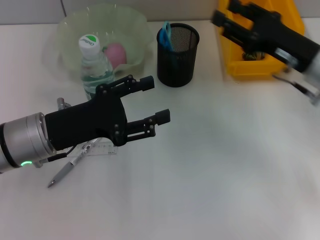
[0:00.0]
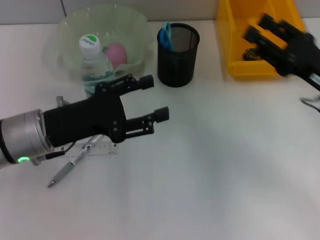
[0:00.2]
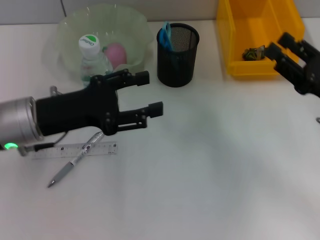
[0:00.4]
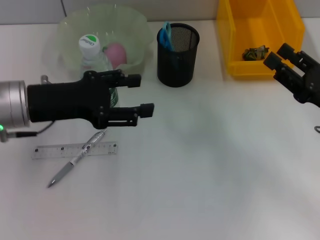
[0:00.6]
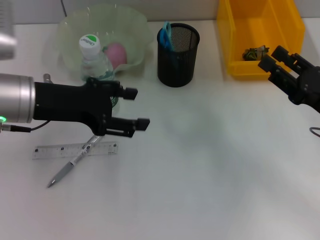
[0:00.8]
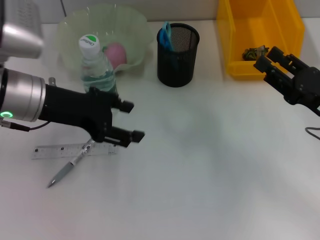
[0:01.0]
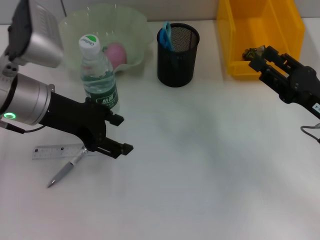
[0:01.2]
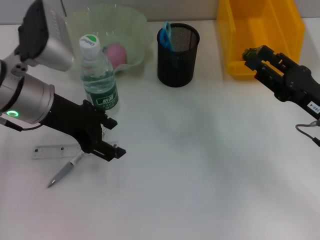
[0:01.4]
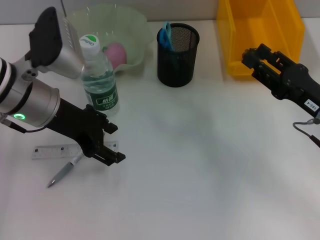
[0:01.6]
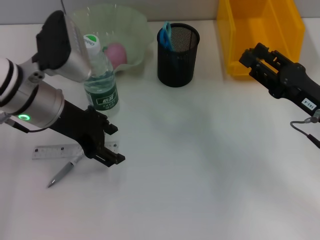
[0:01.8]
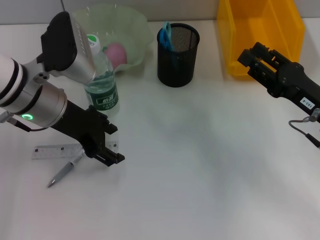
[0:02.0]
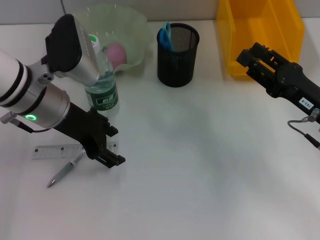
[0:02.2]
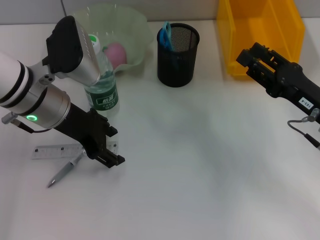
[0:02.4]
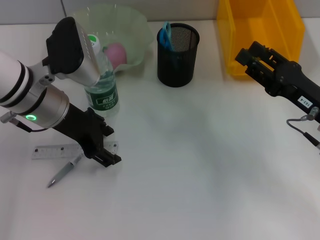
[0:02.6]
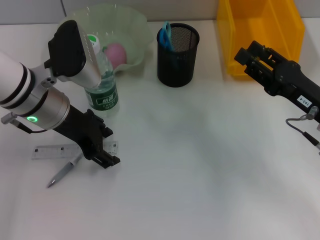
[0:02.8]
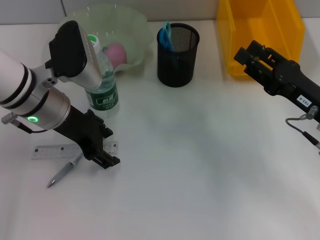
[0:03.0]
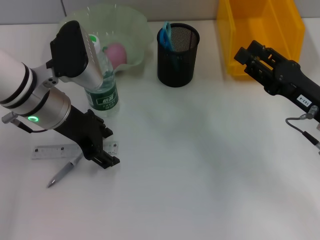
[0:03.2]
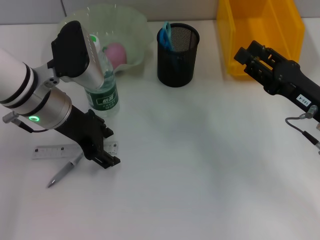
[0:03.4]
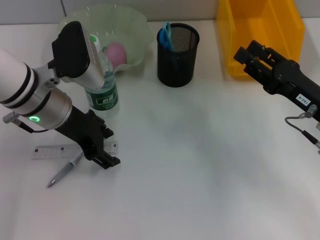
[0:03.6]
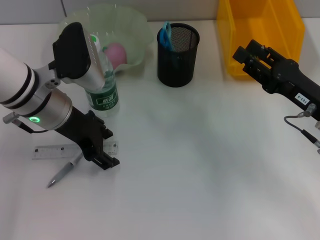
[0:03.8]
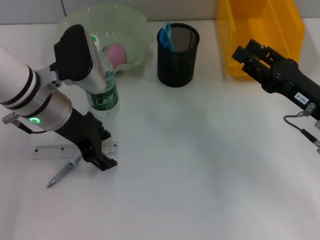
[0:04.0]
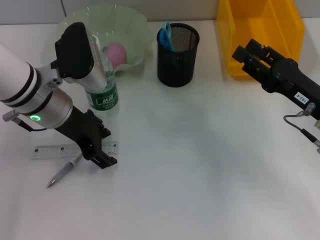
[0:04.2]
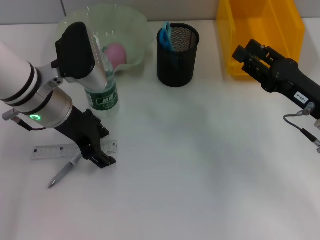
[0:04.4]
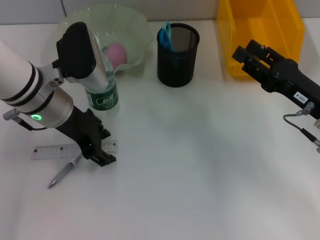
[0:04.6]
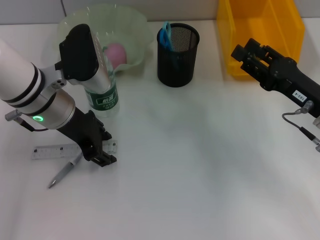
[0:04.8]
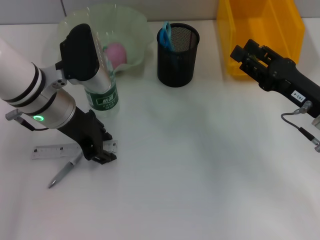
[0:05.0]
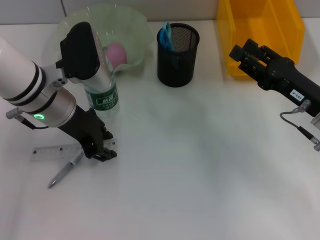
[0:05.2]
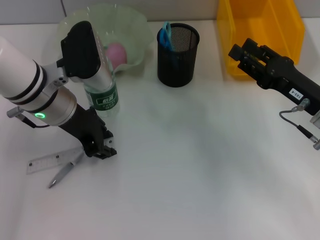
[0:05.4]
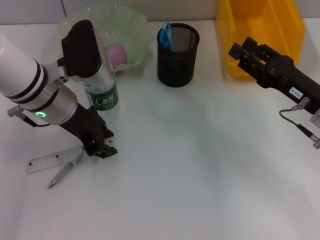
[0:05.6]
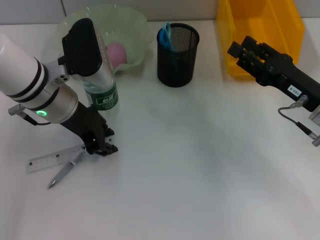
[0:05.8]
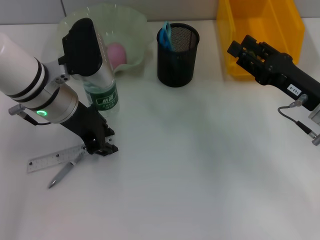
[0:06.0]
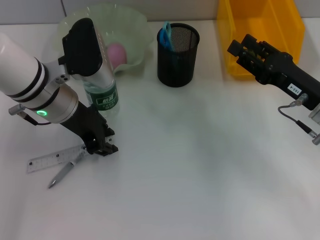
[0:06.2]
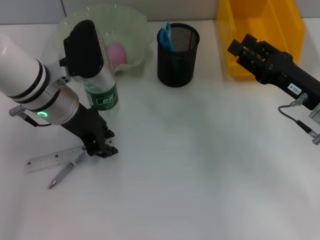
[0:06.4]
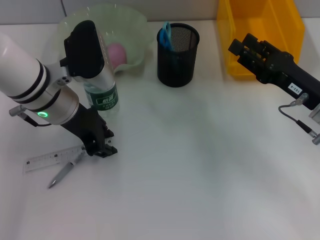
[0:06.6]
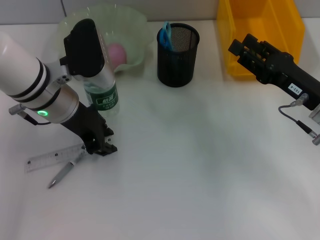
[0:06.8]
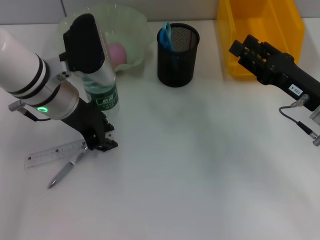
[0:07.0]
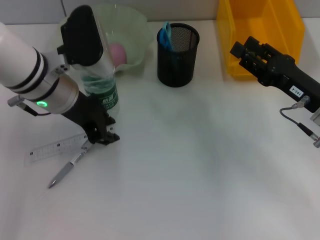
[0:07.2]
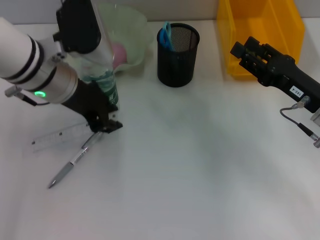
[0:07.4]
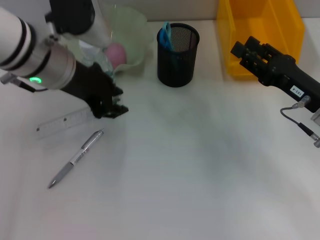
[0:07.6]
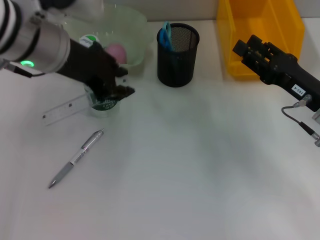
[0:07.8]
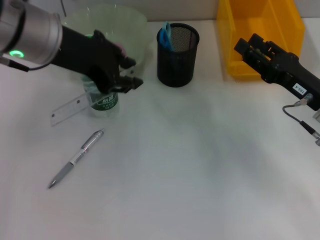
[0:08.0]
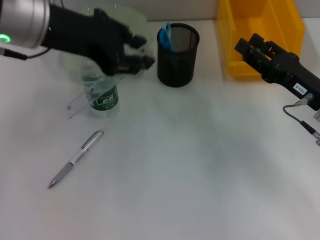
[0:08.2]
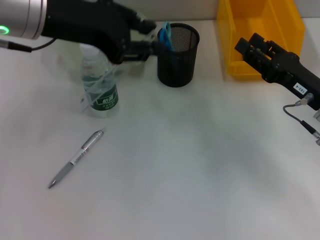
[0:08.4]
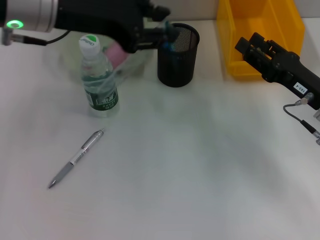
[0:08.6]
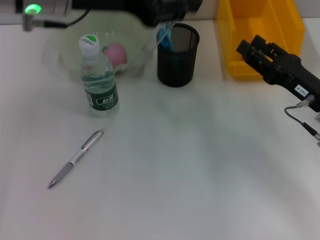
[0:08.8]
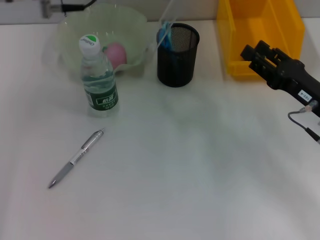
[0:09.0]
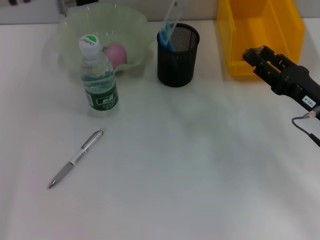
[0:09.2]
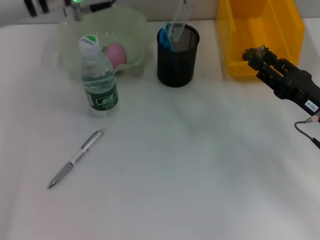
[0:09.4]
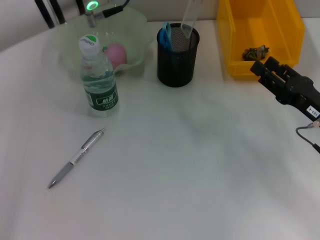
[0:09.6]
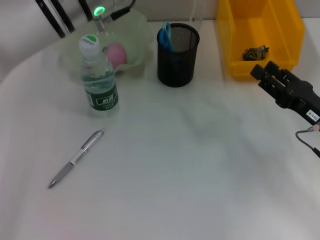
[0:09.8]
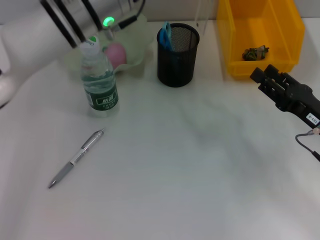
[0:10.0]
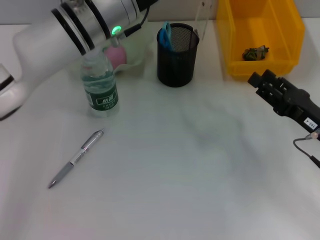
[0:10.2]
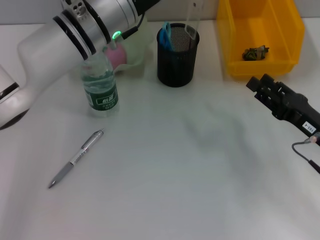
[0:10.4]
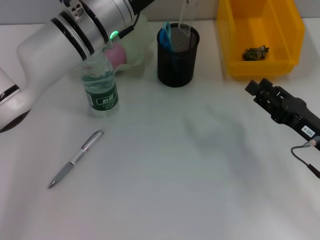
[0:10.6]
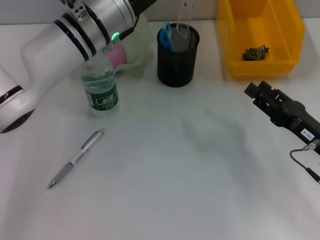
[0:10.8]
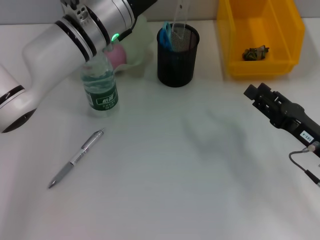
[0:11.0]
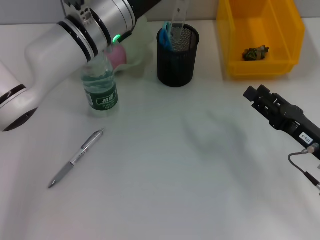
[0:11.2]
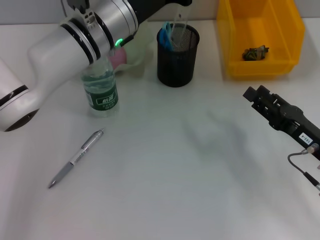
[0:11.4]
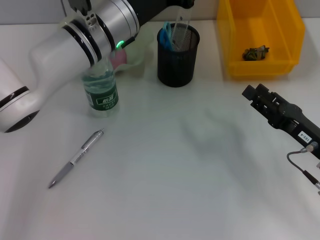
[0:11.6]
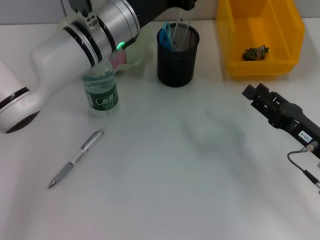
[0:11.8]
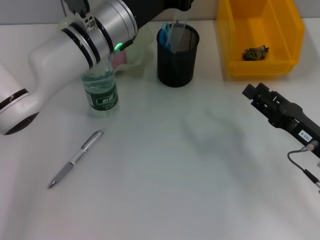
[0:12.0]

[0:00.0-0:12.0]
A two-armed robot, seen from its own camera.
Step, 0:00.0 to 0:06.4: Grab the ruler with the left hand.
0:00.0 to 0:01.6: The left gripper goes roughly 10 cm forward and upward. Meanwhile the right gripper travels backward by some 5 cm.
0:01.6 to 0:03.0: The grippers stay close to where they were, moving slightly.
0:03.0 to 0:04.4: The two grippers keep their place.
0:04.4 to 0:06.0: The left gripper closes.
0:06.0 to 0:07.6: The left gripper shifts roughly 5 cm upward.
0:07.6 to 0:09.0: The left gripper heads upward, covering about 10 cm.
0:09.0 to 0:10.4: The left gripper is displaced downward by some 10 cm.
0:10.4 to 0:12.0: There are only small adjustments of the grippers.

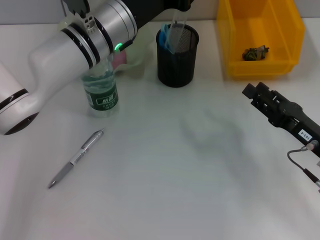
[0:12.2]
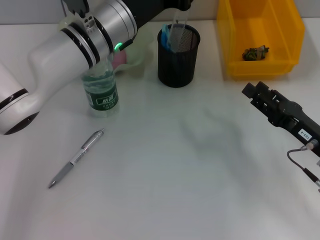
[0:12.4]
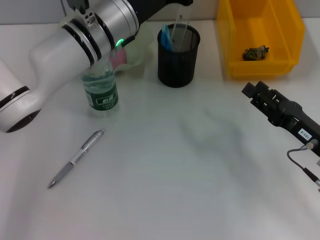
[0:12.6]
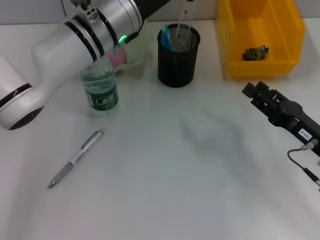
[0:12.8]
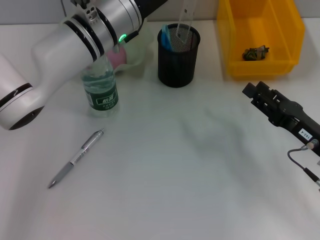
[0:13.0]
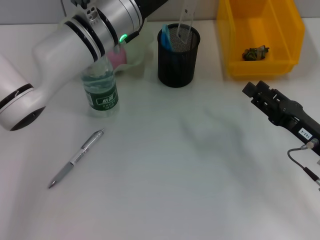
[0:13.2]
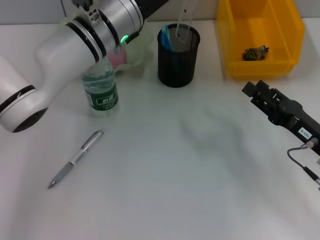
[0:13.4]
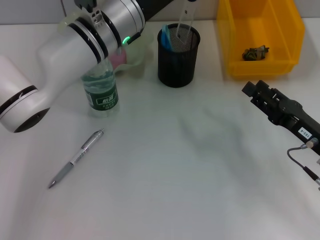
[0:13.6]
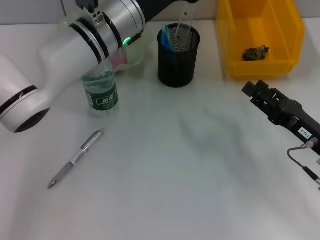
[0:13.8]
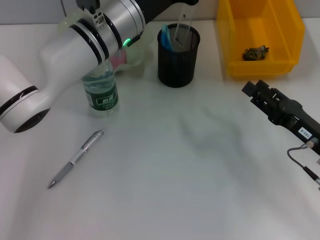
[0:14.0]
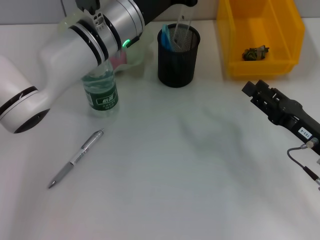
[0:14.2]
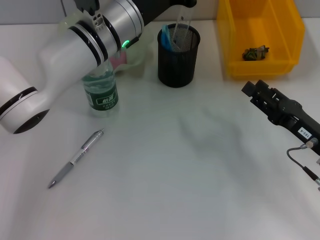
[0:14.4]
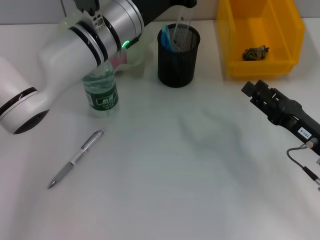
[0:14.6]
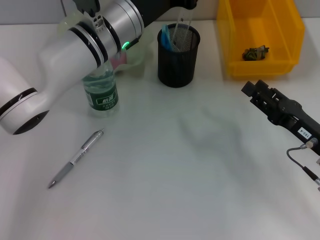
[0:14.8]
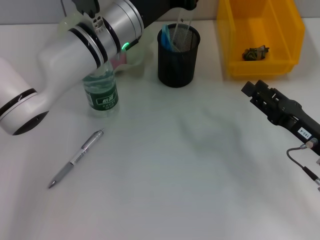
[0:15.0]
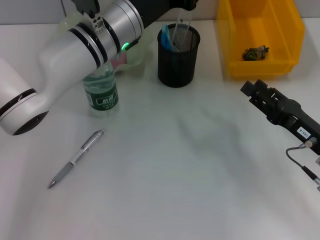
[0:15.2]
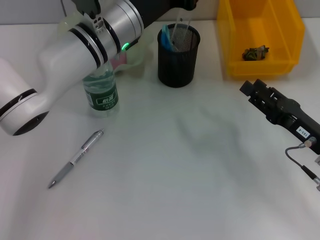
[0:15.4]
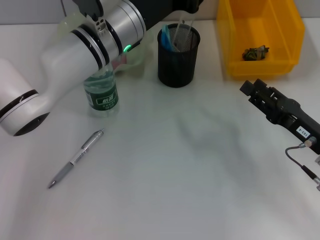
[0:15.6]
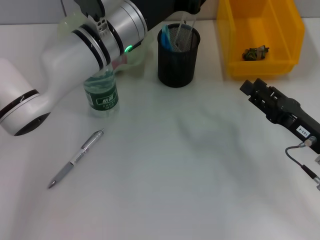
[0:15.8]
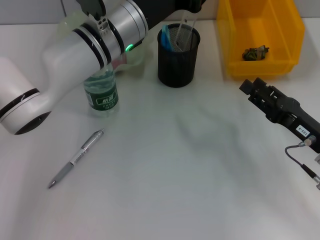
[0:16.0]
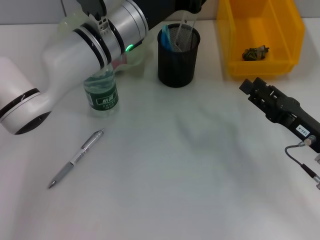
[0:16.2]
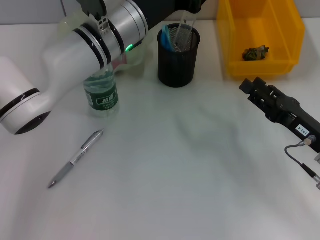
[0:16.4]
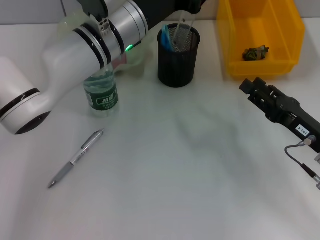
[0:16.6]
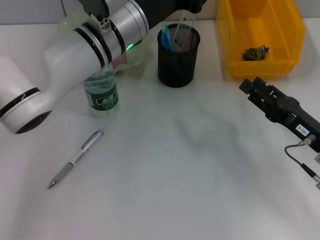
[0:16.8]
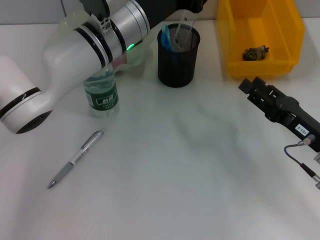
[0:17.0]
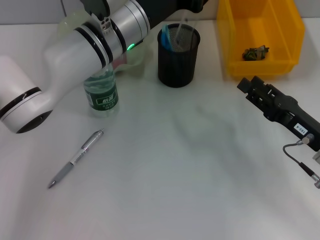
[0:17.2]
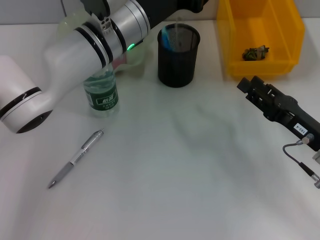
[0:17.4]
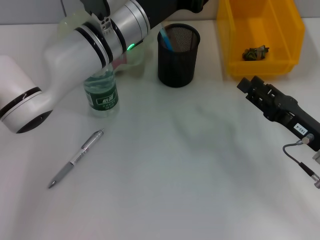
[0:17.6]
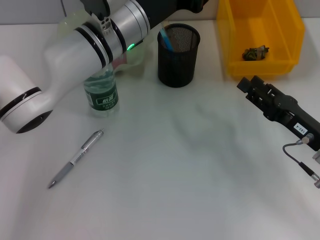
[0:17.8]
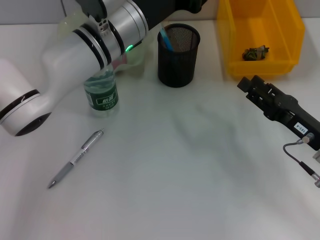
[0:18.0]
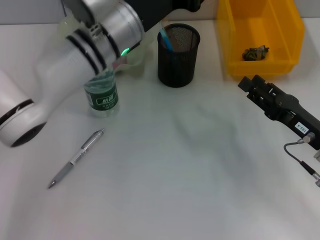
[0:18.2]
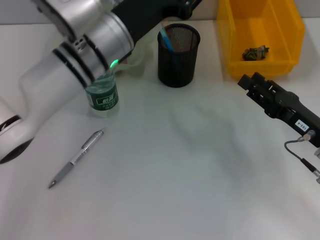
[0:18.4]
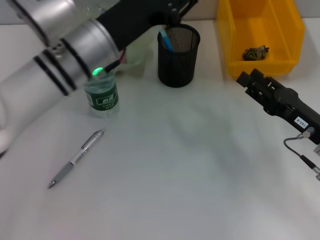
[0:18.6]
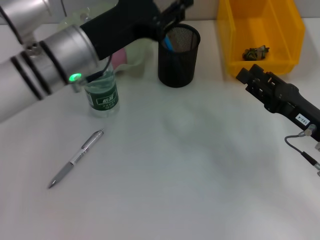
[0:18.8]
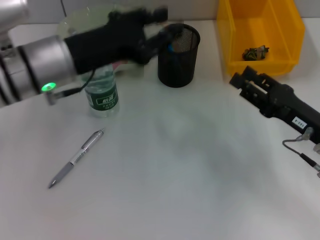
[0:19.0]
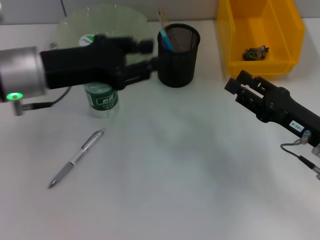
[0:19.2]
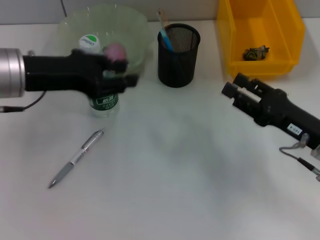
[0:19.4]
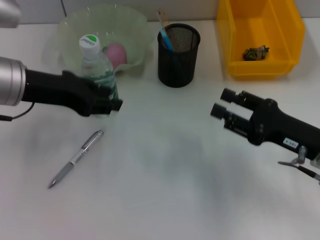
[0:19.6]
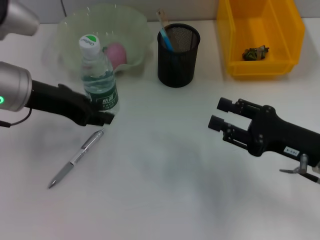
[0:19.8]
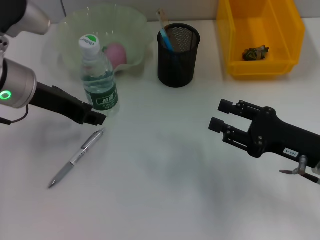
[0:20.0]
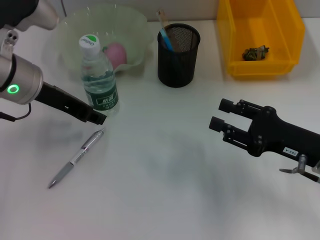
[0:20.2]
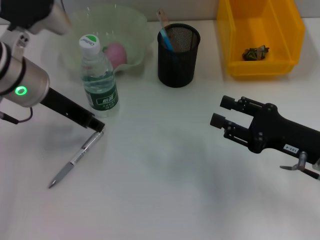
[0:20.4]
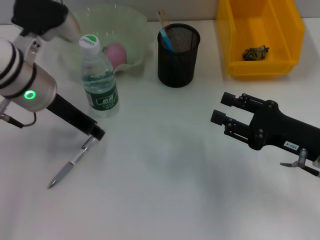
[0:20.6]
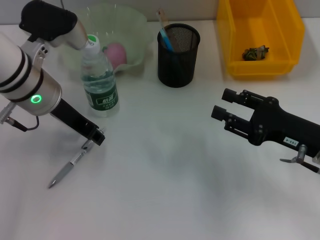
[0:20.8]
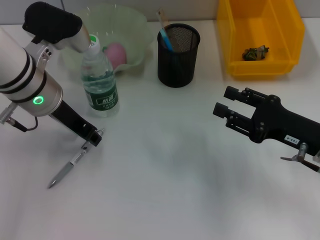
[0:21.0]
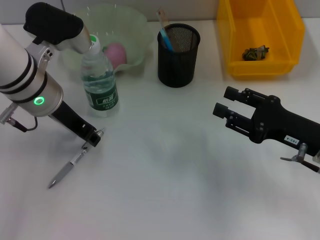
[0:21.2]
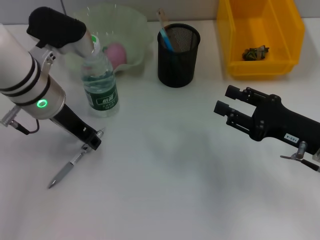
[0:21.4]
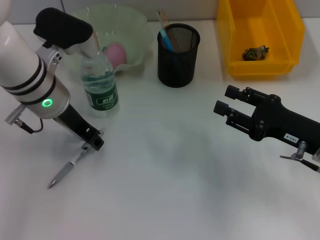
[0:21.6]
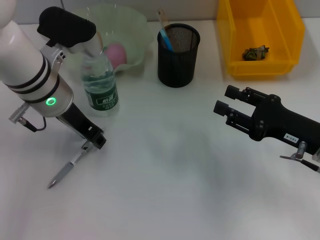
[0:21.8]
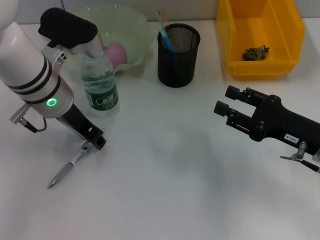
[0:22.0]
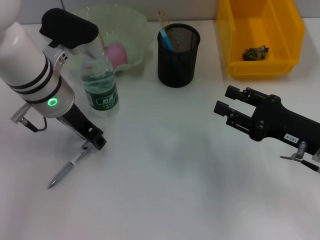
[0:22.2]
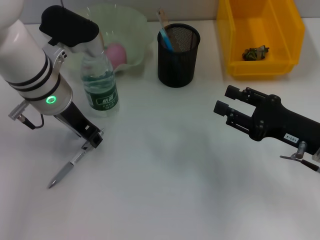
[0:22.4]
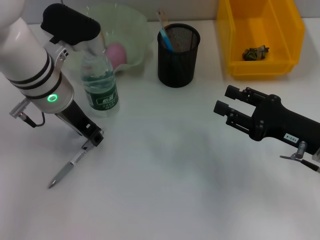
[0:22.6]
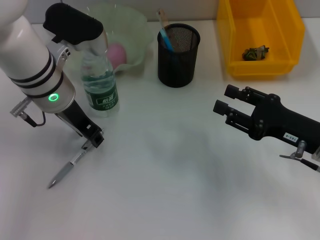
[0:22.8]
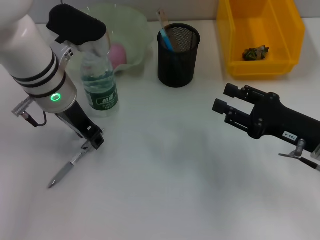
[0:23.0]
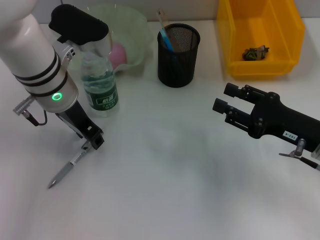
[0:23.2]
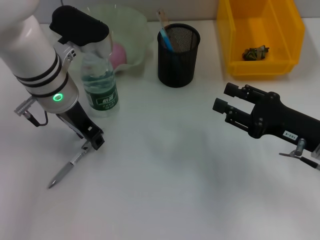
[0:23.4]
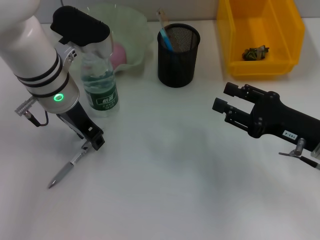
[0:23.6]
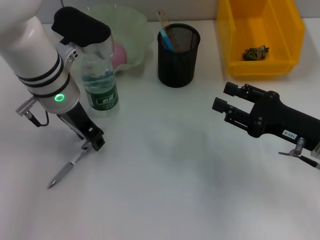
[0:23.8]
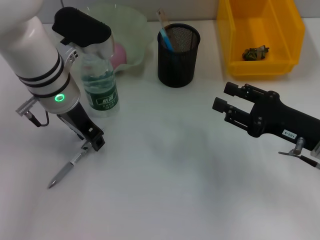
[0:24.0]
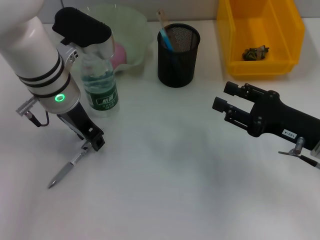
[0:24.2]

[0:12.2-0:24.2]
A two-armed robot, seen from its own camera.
Step, 0:12.2 to 0:18.2: Place the ruler into the pen holder with the left hand.
0:12.2 to 0:15.2: Neither gripper changes place.
0:15.2 to 0:18.2: Both grippers stay put.
0:18.2 to 0:19.8: The left gripper heads to the left, covering approximately 15 cm.
0:19.8 to 0:21.2: The left gripper ends up about 5 cm from where it was.
0:21.2 to 0:22.6: There are only small adjustments of the grippers.
0:22.6 to 0:24.2: Both grippers stay put.
